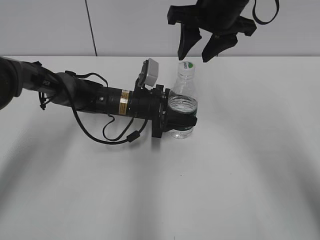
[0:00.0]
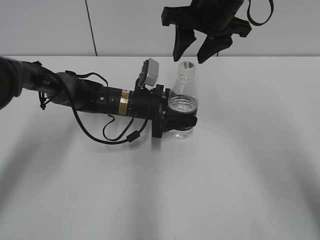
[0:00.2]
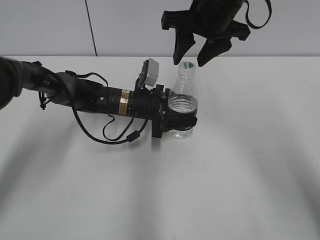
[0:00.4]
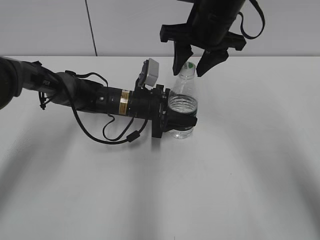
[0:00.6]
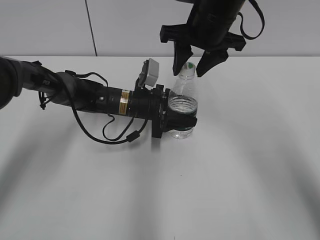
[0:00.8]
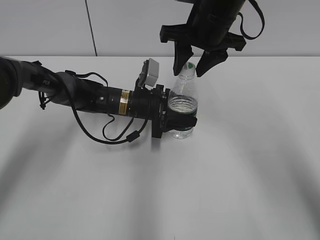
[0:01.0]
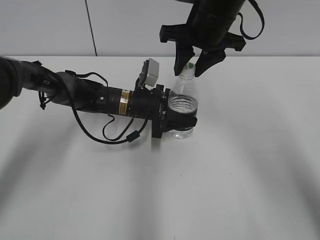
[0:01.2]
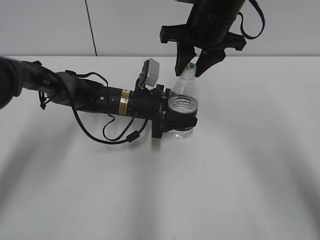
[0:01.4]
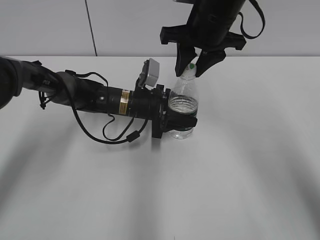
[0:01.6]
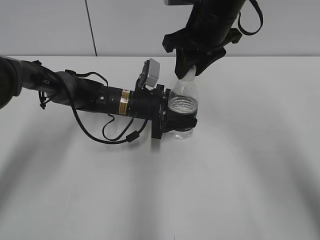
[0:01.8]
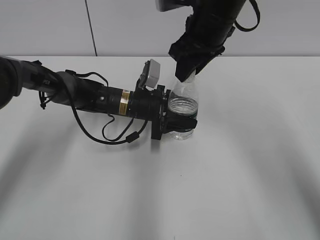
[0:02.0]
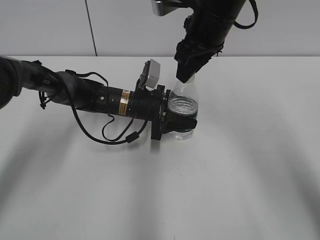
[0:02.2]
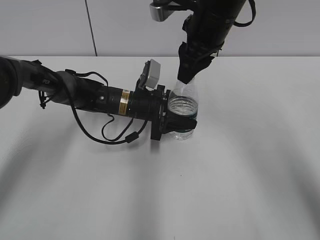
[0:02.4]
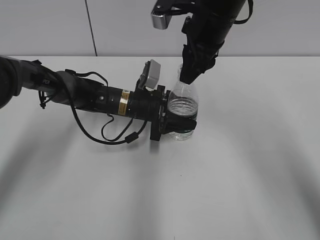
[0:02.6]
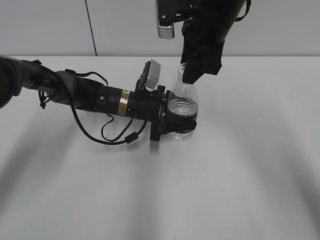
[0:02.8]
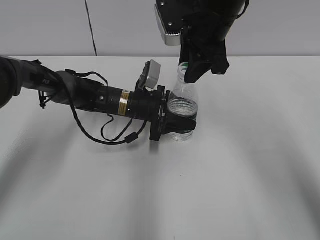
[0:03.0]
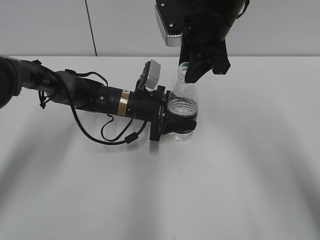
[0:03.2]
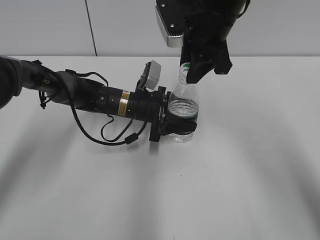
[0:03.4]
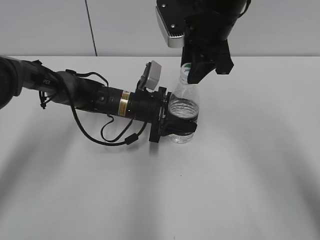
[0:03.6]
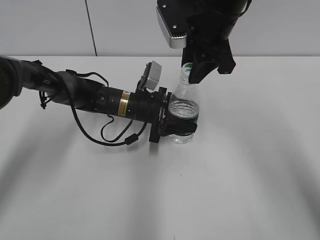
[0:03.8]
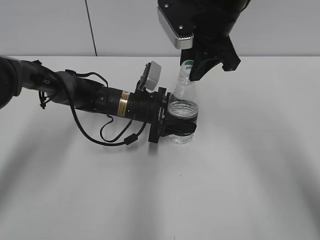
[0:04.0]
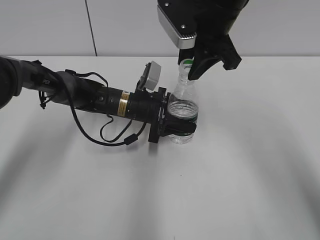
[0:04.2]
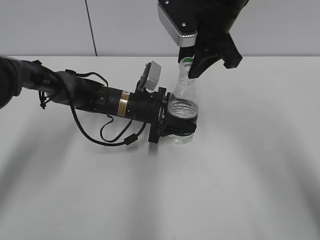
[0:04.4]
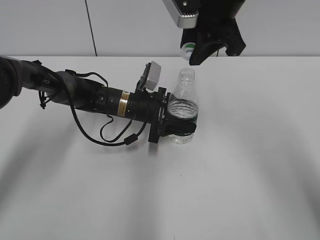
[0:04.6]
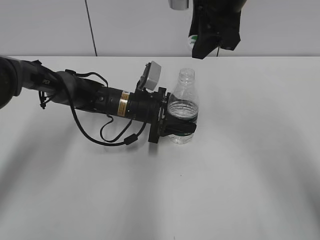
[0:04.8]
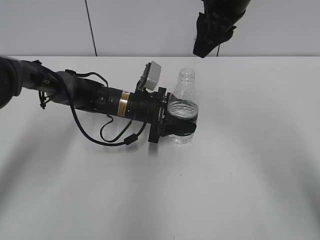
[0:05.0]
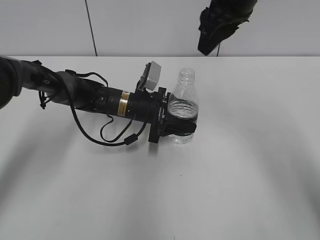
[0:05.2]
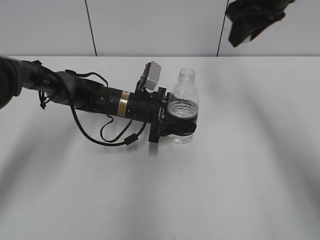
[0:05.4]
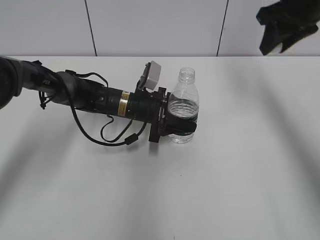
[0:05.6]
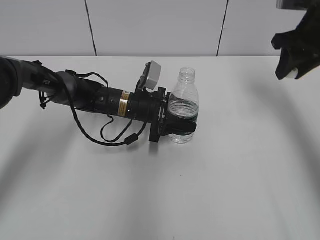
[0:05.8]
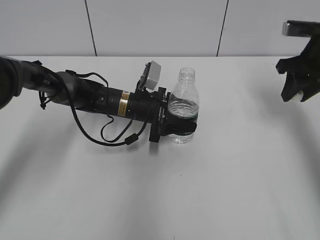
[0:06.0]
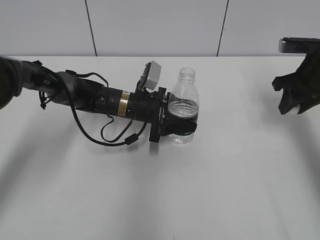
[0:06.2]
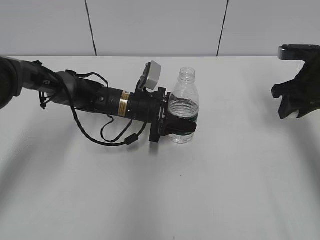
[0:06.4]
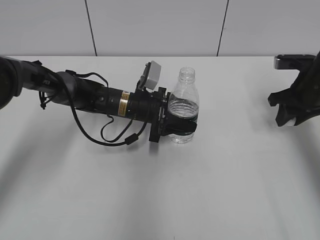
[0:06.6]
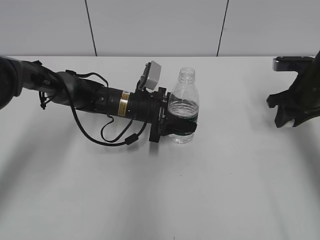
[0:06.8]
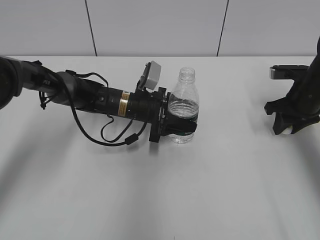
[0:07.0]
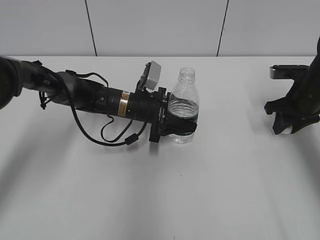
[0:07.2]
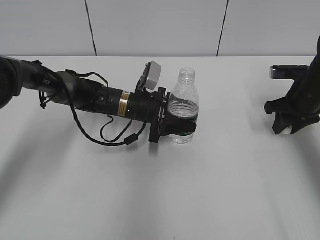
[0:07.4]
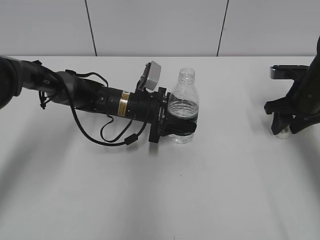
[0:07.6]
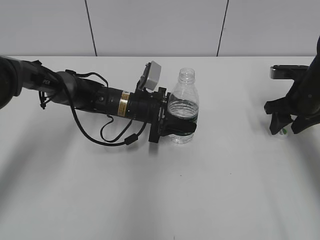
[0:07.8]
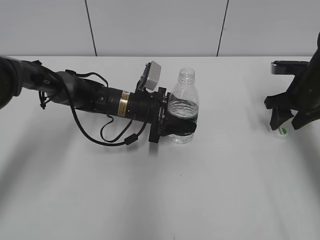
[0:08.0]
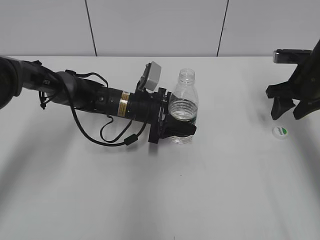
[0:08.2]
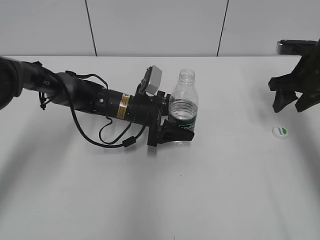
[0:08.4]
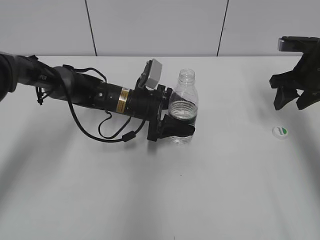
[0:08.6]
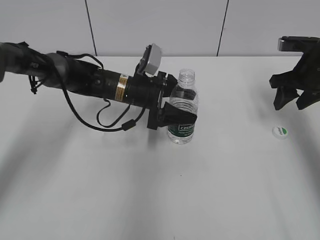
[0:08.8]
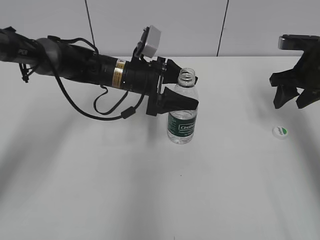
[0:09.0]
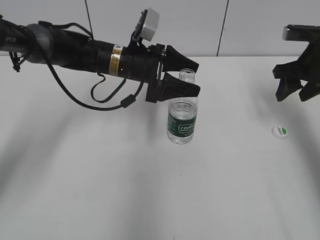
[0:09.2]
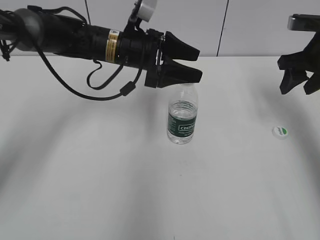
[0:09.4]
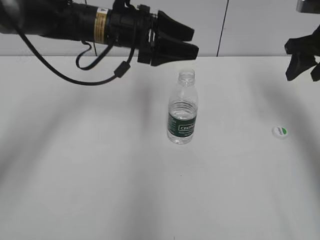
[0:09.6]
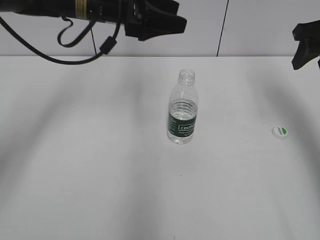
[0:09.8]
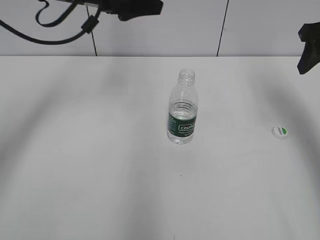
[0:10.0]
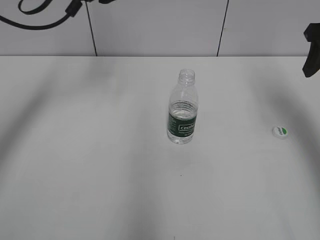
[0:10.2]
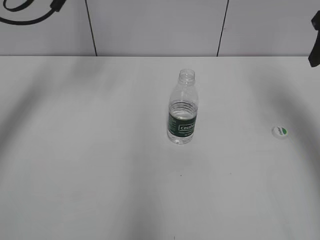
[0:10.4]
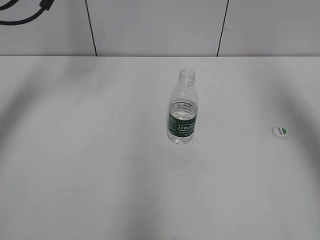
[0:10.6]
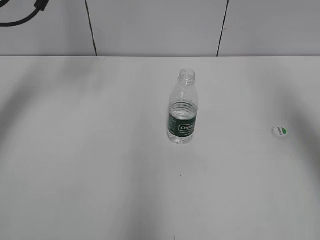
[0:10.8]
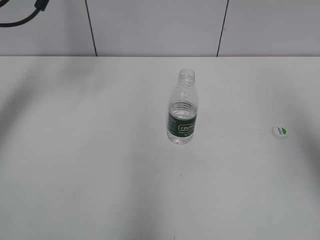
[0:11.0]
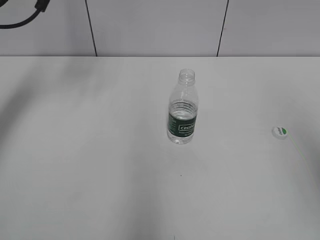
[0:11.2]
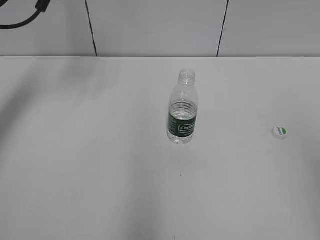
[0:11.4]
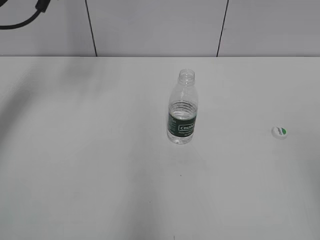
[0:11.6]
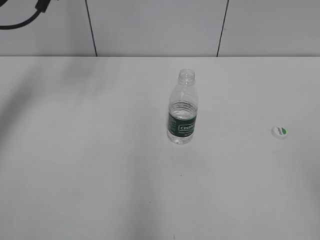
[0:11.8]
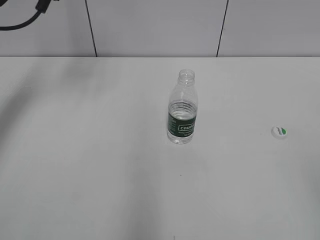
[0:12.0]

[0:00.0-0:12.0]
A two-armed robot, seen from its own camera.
Step, 0.0 to 4.8 s: Unscrew the bottle cap with the right gripper while holding the bottle with the left gripper.
Step, 5.0 to 8.0 s: Place the bottle cap on the table with the right gripper.
Step, 8.2 to 9.6 s: Place the bottle on the table with the left gripper.
0.0 to 1.6 s: The right gripper closes its fingers.
3.0 to 4.4 s: The grippers move only a little.
4.4 to 6.0 s: The right gripper travels to the right by roughly 20 cm.
6.0 to 7.6 s: The right gripper goes roughly 10 cm downward, and opens its fingers.
7.6 to 9.0 s: Both grippers move upward, roughly 5 cm. The left gripper opens up. The right gripper opens up.
9.0 to 10.4 s: The left gripper is displaced upward and to the left by approximately 20 cm, while the right gripper is displaced upward by roughly 15 cm.
10.4 to 12.0 s: The right gripper shifts about 35 cm backward.

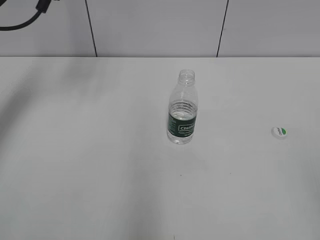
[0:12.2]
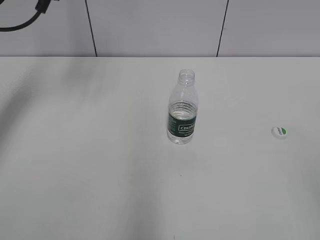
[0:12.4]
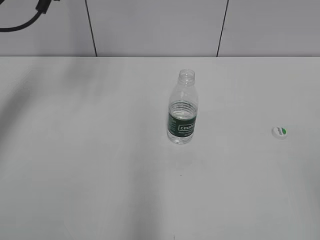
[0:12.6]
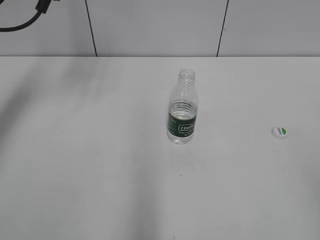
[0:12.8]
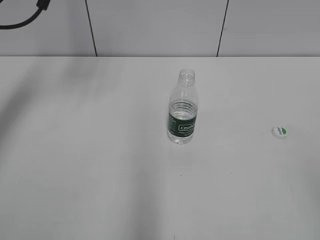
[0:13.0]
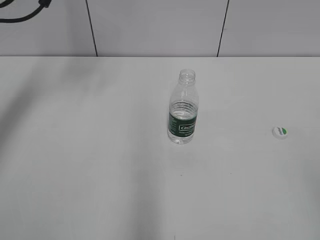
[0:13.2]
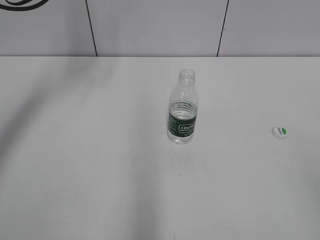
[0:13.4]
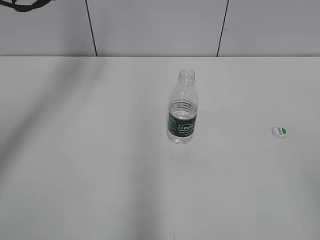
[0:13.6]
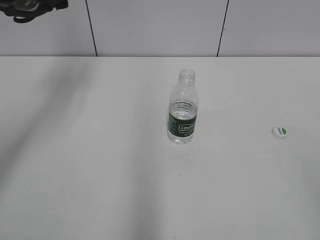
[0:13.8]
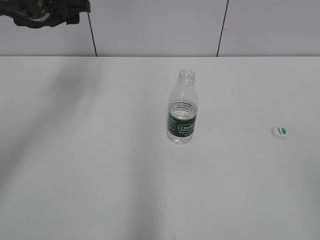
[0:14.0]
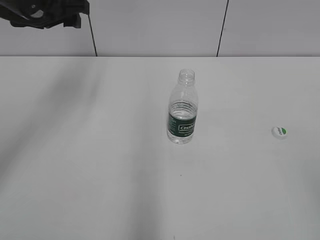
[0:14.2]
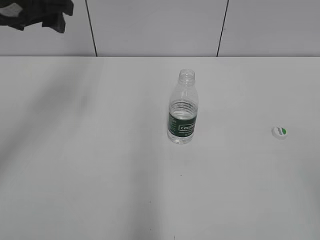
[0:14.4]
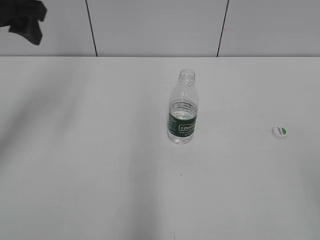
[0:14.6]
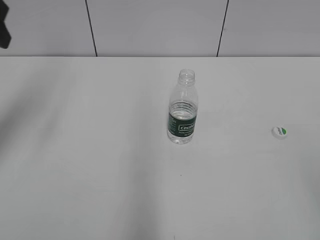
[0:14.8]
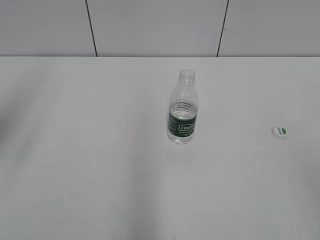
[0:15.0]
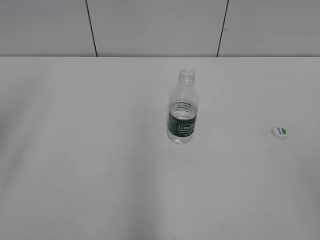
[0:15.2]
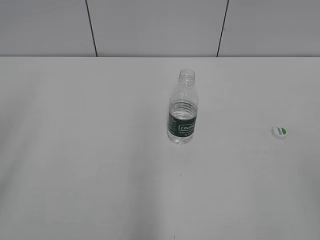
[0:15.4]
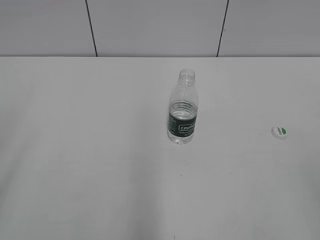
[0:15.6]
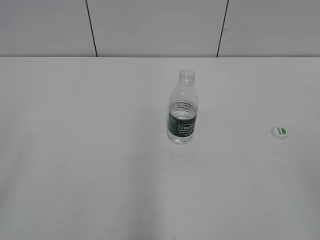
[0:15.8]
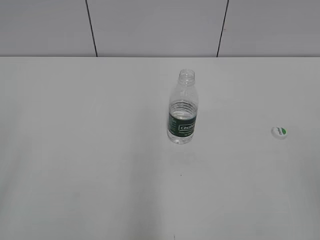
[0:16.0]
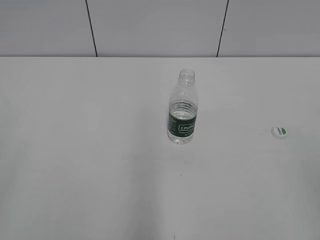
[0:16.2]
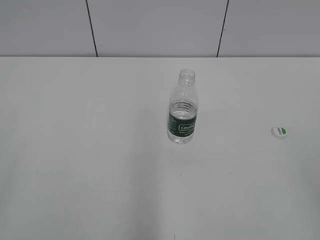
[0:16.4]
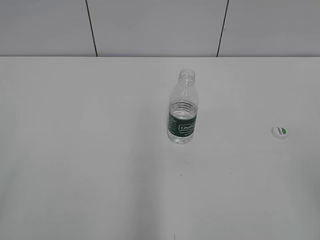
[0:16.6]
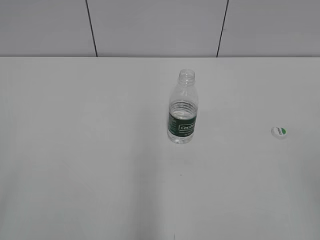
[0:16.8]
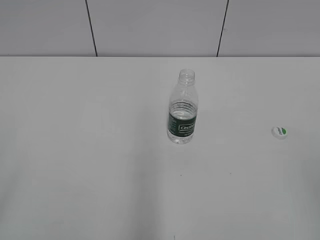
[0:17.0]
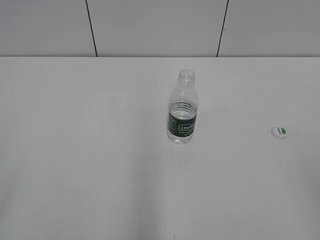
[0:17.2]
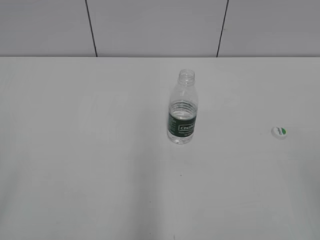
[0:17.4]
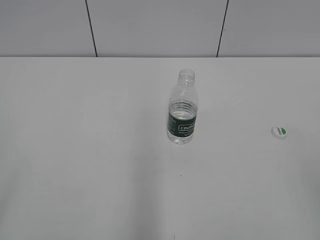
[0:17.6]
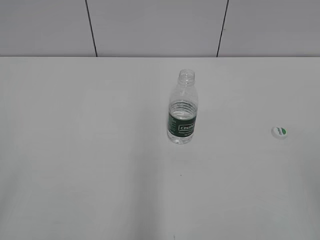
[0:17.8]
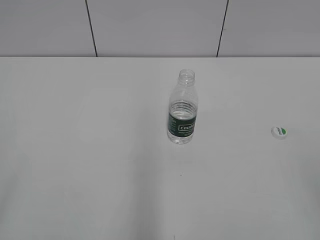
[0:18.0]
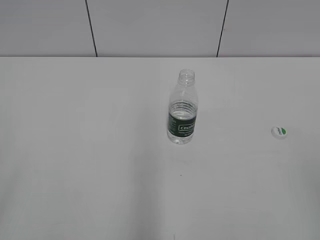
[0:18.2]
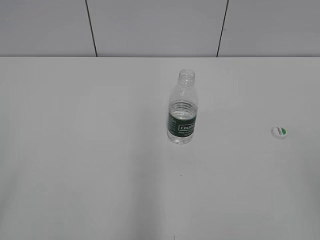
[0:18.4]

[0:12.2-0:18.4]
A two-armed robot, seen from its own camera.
13.8 to 15.4 s: The left gripper heads backward, covering about 30 cm.
16.8 to 18.4 s: Both grippers stay about where they are.

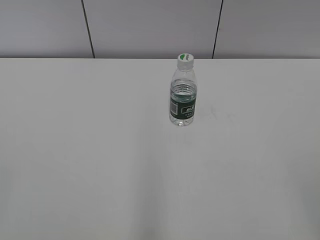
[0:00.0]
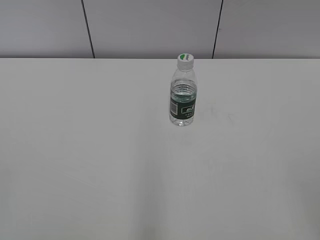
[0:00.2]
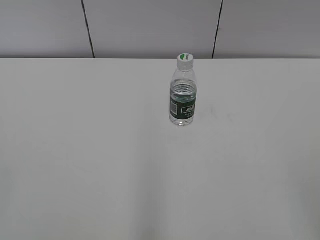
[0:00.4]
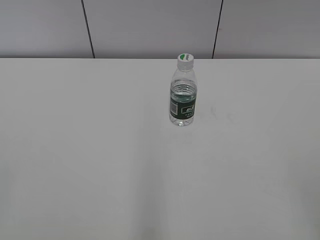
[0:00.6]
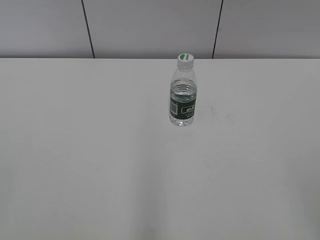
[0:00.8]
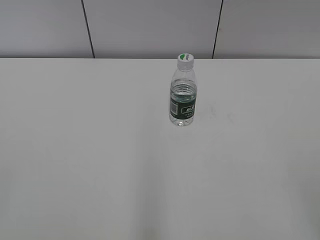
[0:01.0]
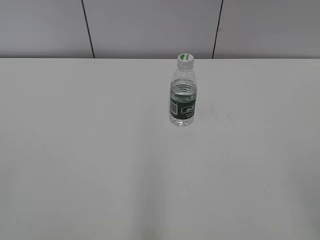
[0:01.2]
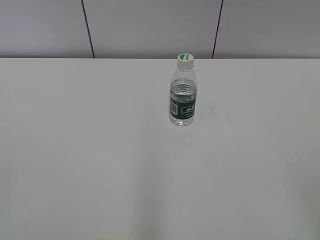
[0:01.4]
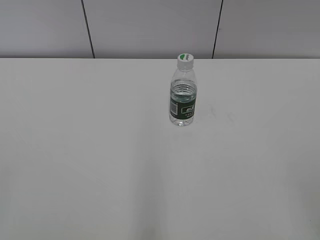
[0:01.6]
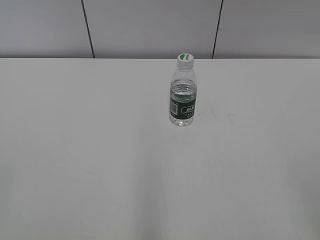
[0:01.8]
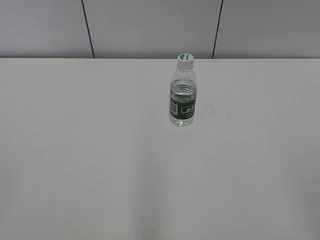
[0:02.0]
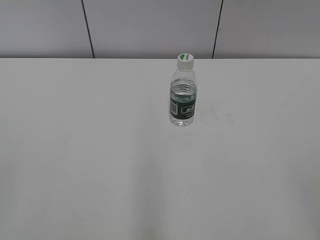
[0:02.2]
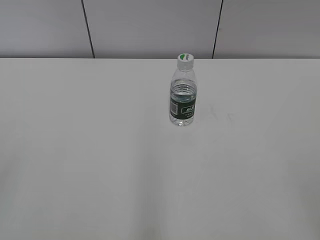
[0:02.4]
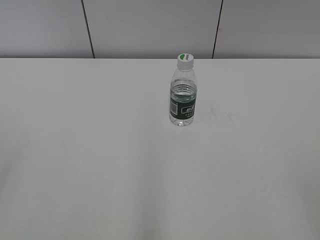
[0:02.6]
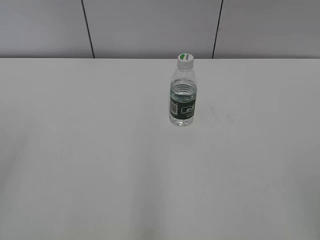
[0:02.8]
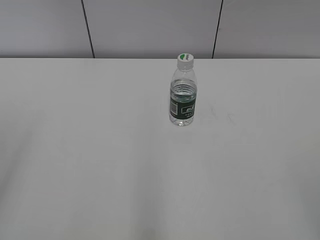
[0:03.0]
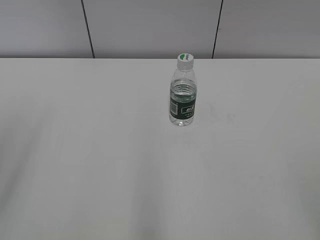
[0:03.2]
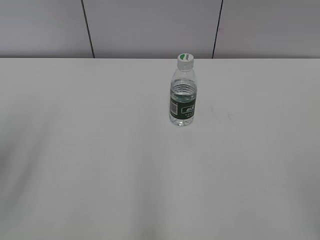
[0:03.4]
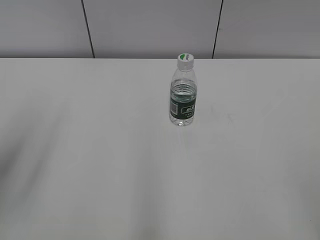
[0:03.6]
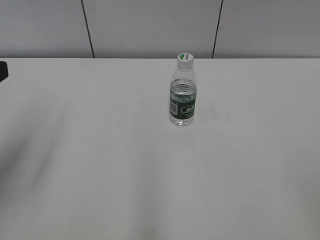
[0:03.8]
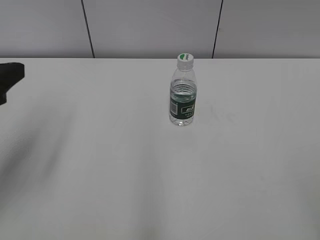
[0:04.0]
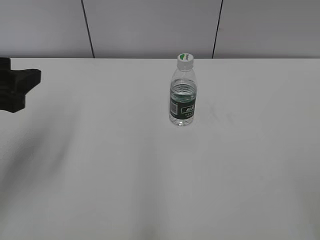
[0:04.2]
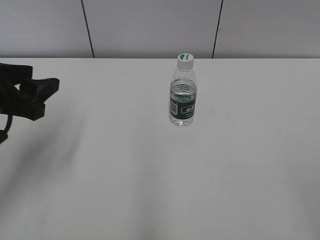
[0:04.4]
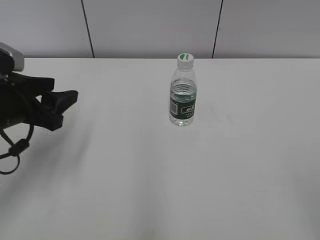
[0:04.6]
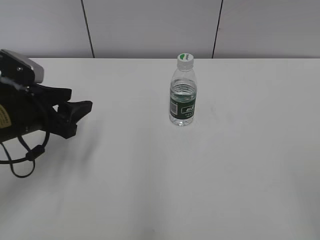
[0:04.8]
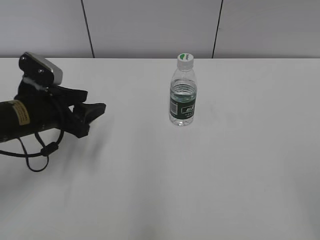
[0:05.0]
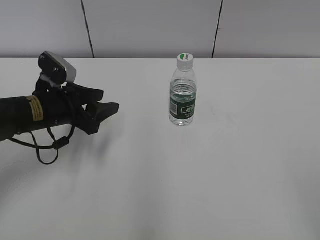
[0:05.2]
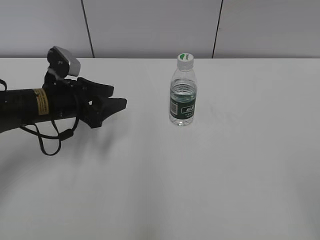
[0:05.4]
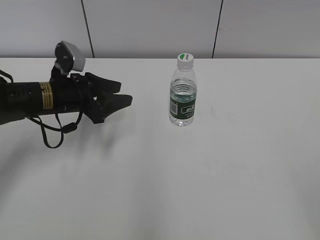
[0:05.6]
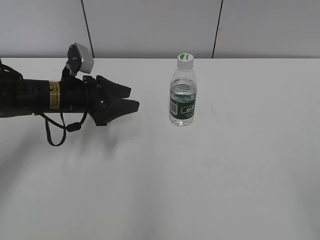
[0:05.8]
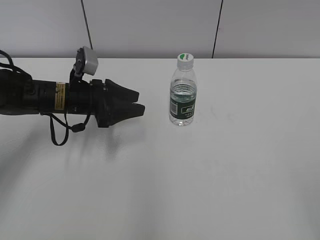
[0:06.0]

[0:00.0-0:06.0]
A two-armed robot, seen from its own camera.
3.0 to 4.4 s: The left gripper shifts some 20 cm forward, downward and to the right.
4.4 to 6.0 s: The left gripper heads forward, downward and to the right, covering about 20 cm.
